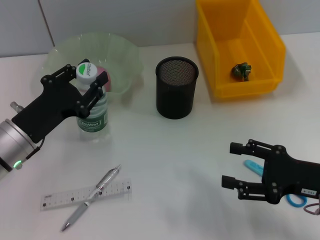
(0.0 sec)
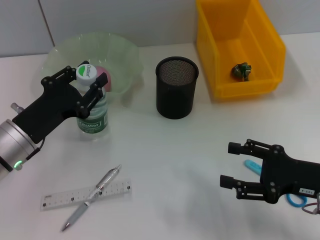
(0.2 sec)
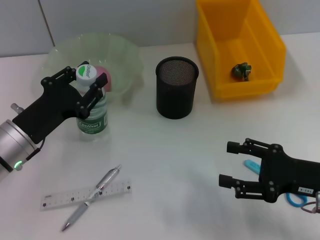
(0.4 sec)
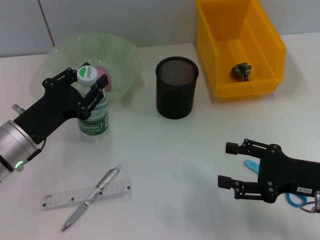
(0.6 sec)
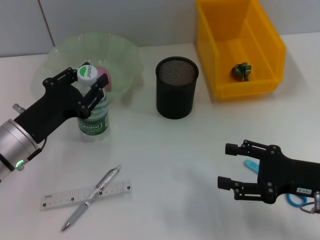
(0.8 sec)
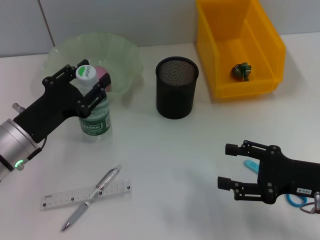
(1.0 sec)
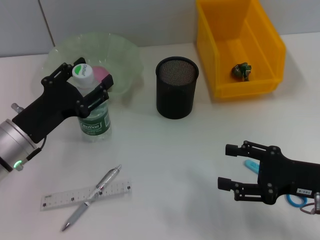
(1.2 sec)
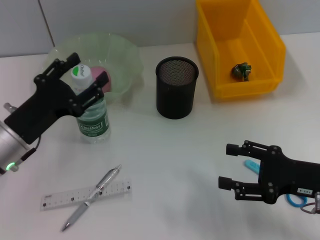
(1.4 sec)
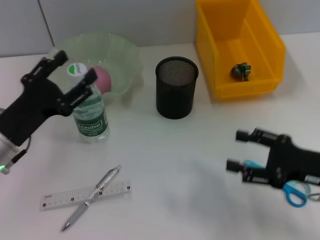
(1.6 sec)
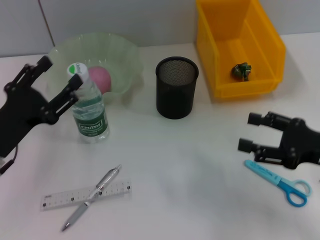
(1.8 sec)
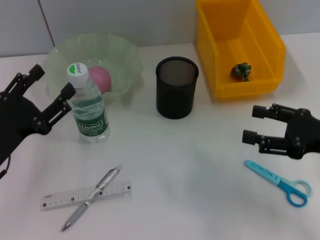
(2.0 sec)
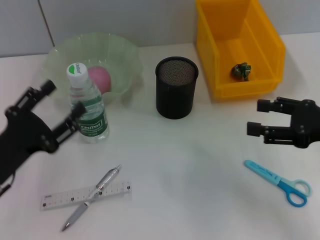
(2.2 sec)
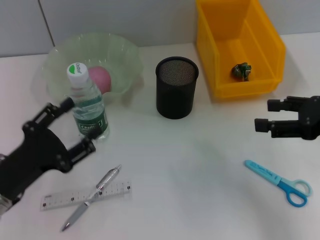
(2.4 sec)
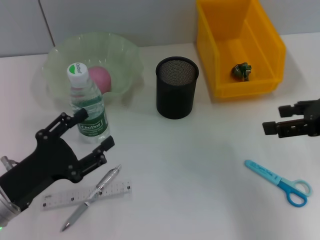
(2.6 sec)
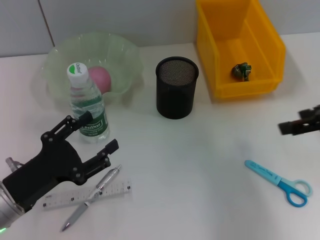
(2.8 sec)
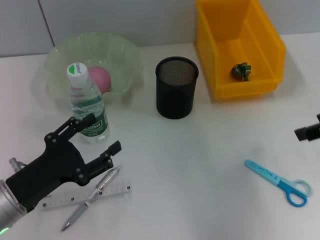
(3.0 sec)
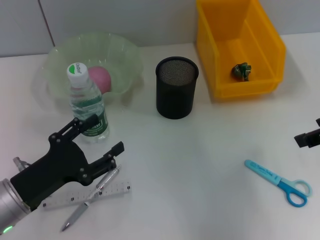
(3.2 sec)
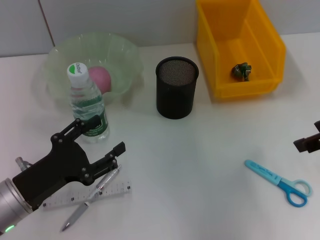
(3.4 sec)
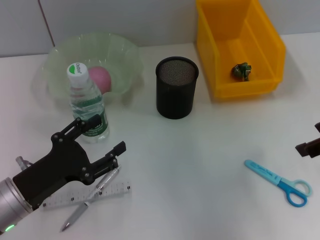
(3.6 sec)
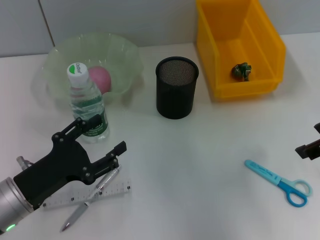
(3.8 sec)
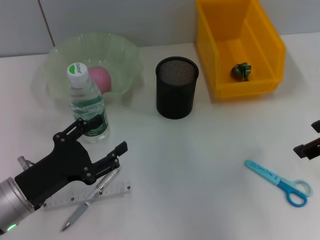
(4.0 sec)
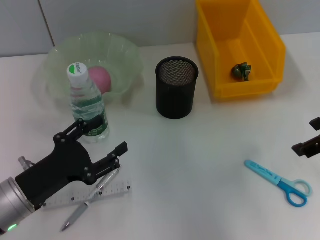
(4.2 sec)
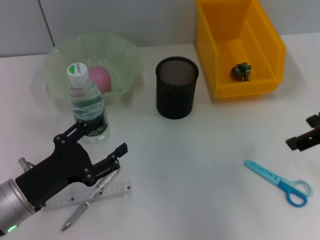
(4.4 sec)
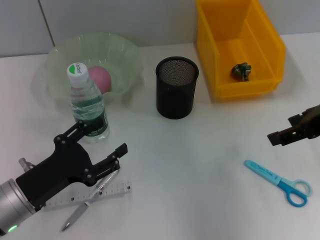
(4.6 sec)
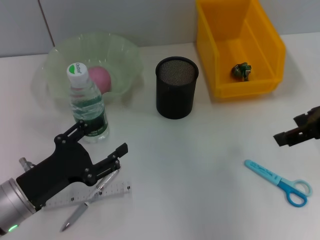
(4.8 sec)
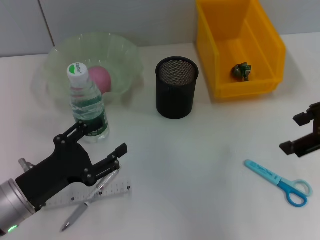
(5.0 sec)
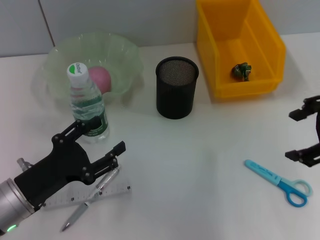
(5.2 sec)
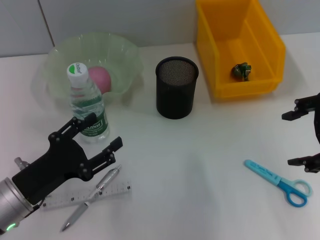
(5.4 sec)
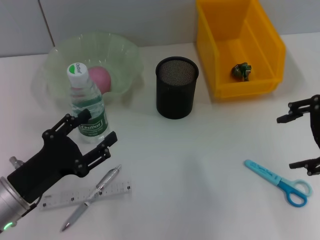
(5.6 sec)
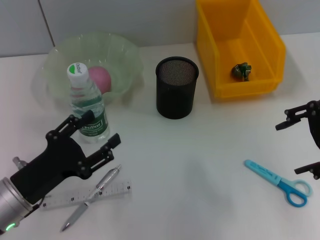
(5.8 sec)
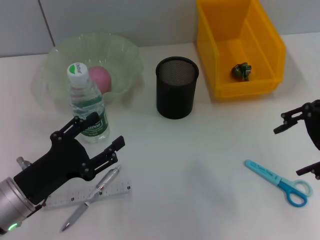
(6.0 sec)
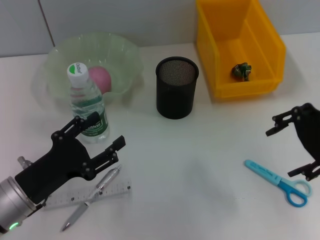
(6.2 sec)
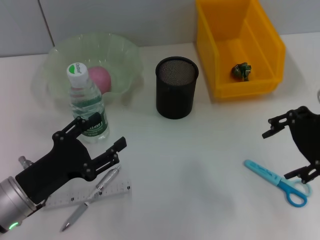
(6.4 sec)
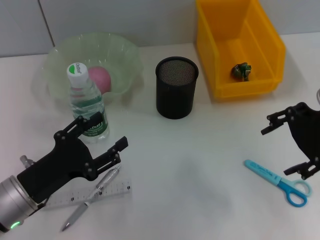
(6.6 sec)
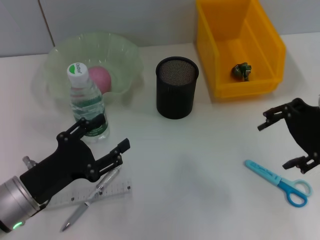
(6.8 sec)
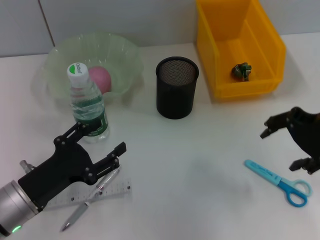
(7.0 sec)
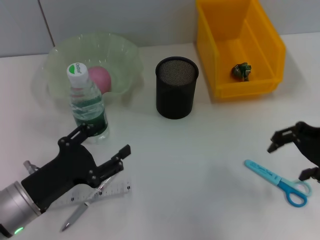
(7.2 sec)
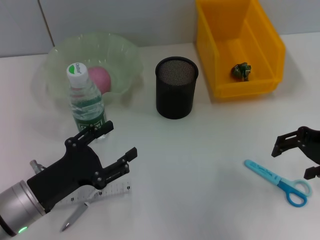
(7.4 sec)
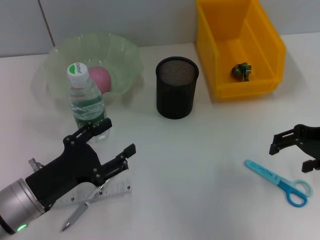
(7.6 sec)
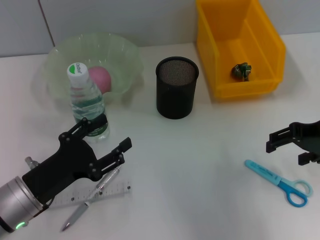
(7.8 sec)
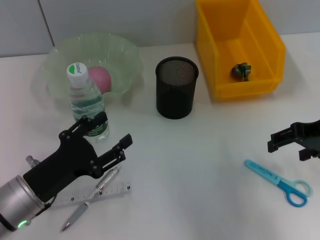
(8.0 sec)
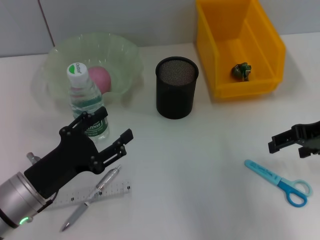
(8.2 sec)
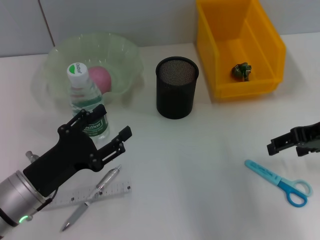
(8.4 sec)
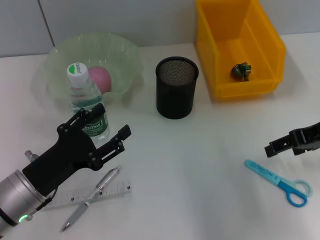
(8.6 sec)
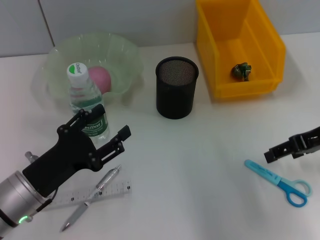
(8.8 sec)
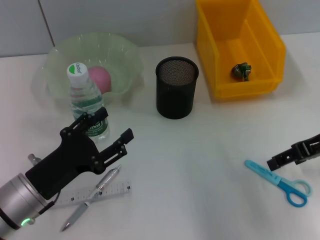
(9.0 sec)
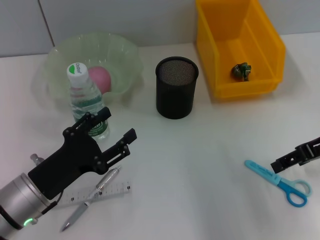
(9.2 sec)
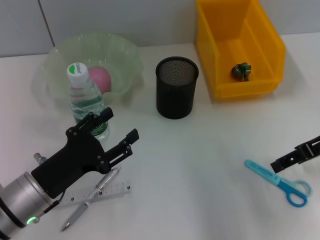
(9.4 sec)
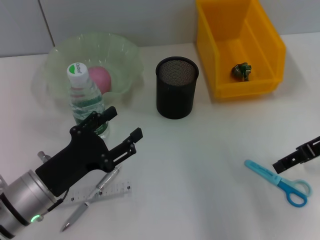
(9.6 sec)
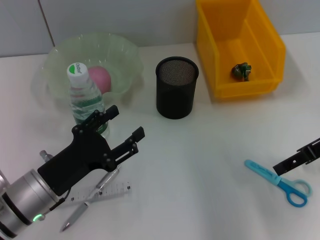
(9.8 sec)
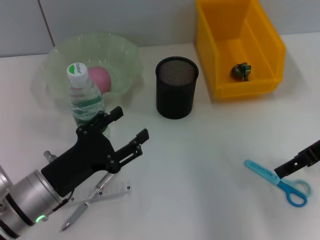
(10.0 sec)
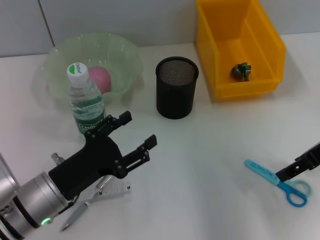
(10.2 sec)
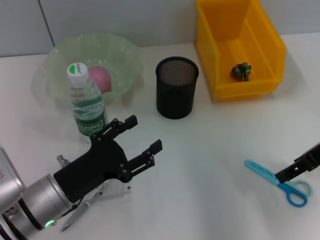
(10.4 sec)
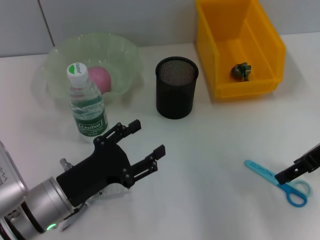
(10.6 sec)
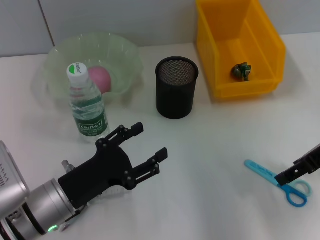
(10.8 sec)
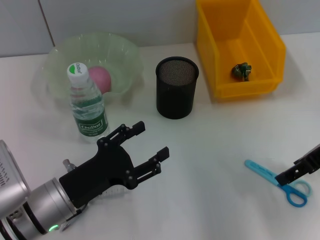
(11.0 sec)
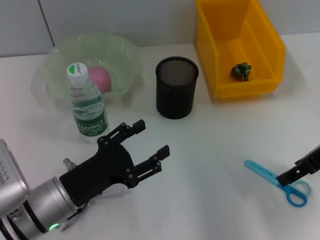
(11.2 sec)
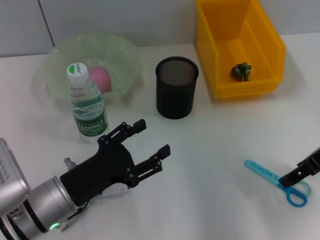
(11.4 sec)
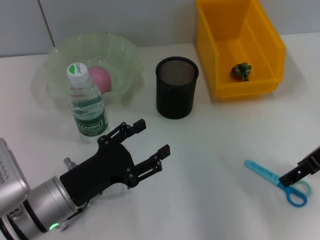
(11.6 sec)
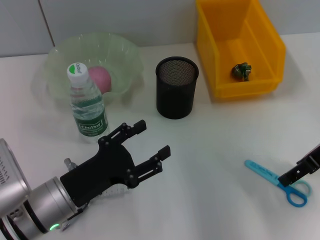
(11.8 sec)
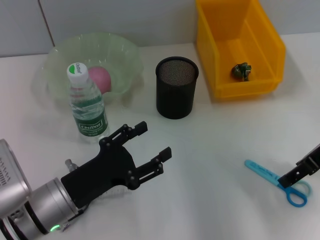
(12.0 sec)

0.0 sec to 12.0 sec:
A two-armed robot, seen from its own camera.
0.0 sec to 1.6 sec: The left gripper opens.
1.6 sec to 3.0 sec: The right gripper travels upward by roughly 15 cm. The left gripper moves backward, approximately 5 cm.
3.0 sec to 4.4 sec: The grippers stay close to where they were, moving slightly.
6.0 sec to 7.6 sec: The right gripper moves downward, about 5 cm.
9.0 sec to 10.4 sec: There are only small adjustments of the grippers.
10.4 sec to 12.0 sec: The two grippers keep their place.

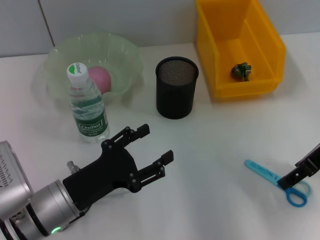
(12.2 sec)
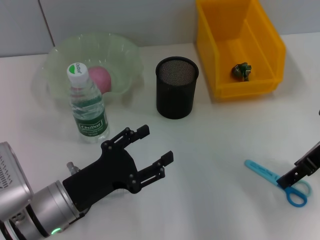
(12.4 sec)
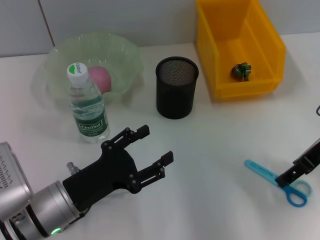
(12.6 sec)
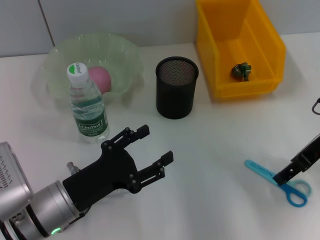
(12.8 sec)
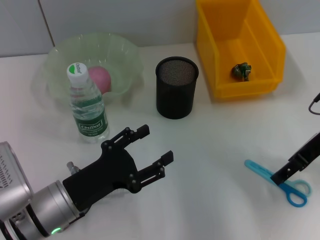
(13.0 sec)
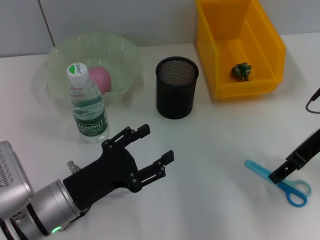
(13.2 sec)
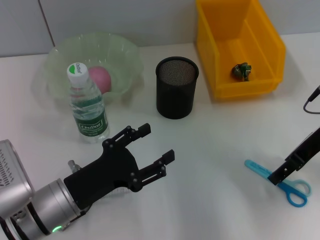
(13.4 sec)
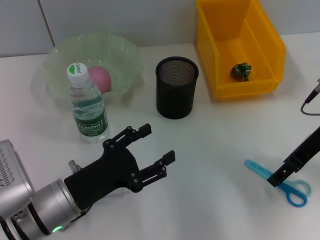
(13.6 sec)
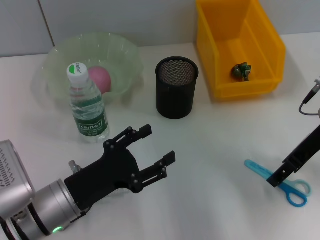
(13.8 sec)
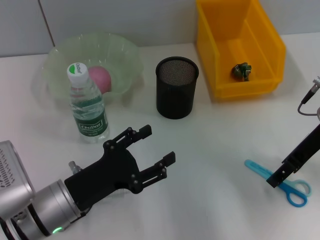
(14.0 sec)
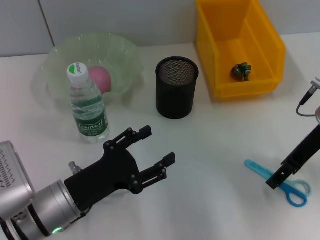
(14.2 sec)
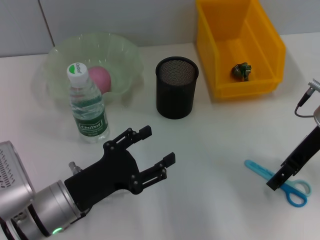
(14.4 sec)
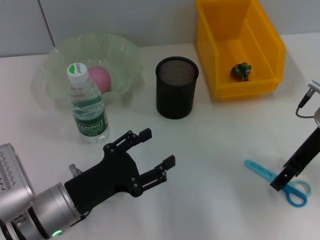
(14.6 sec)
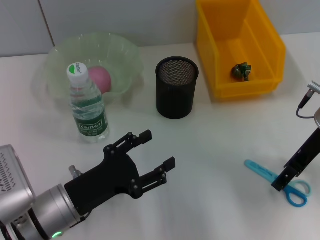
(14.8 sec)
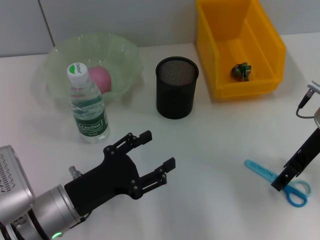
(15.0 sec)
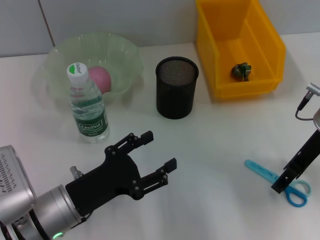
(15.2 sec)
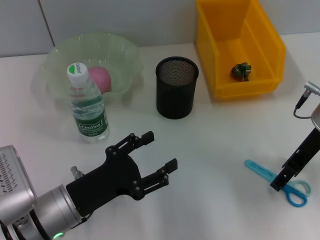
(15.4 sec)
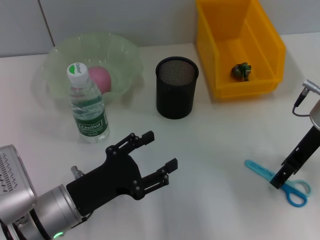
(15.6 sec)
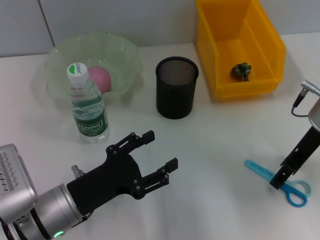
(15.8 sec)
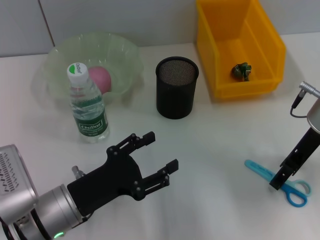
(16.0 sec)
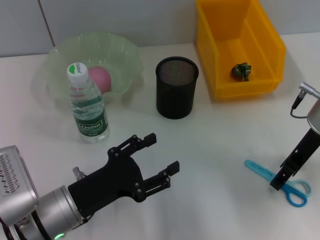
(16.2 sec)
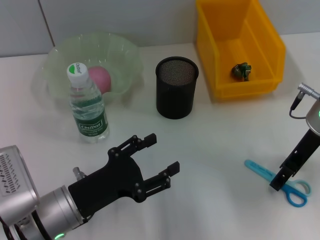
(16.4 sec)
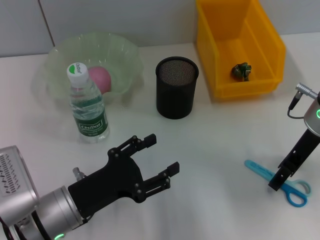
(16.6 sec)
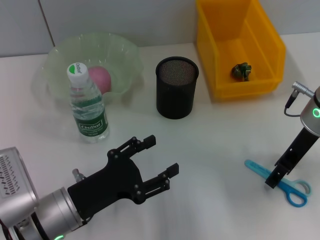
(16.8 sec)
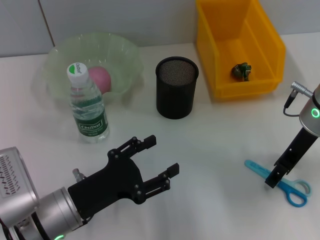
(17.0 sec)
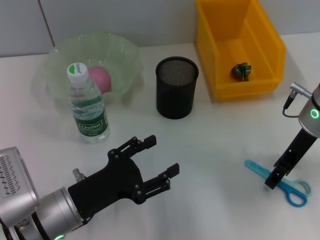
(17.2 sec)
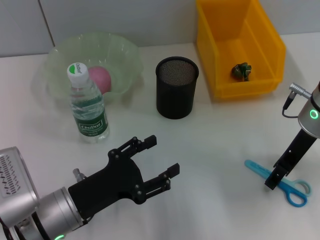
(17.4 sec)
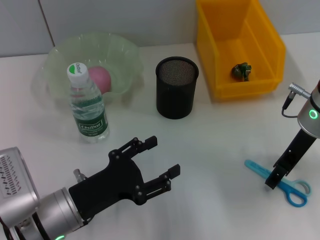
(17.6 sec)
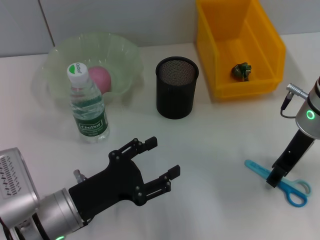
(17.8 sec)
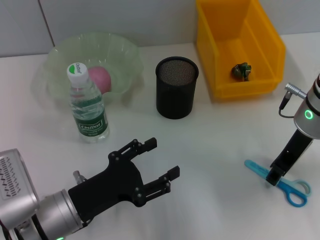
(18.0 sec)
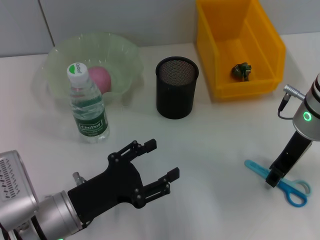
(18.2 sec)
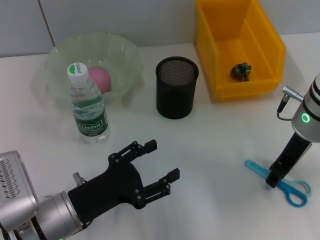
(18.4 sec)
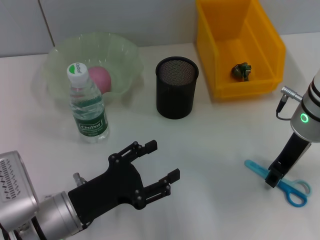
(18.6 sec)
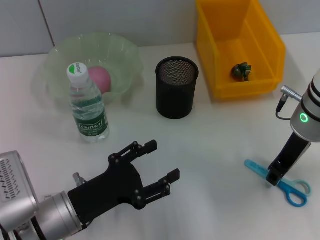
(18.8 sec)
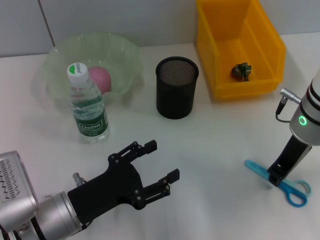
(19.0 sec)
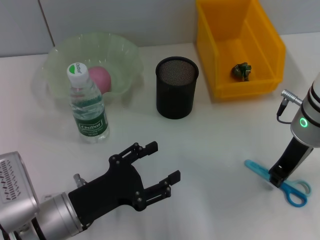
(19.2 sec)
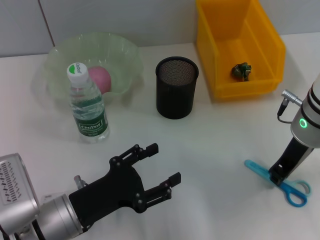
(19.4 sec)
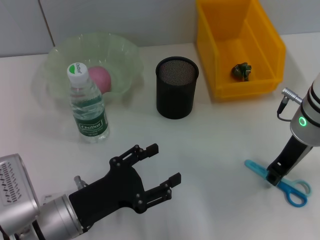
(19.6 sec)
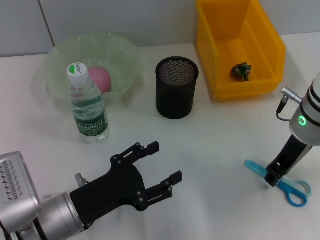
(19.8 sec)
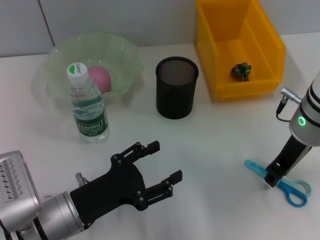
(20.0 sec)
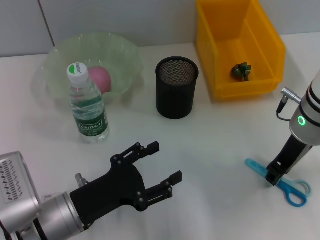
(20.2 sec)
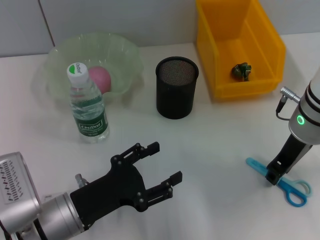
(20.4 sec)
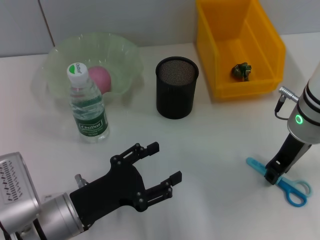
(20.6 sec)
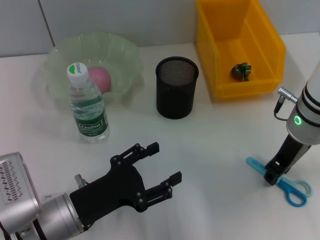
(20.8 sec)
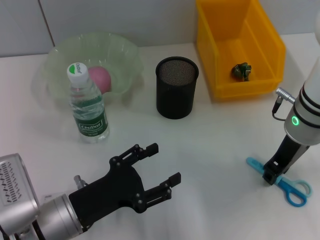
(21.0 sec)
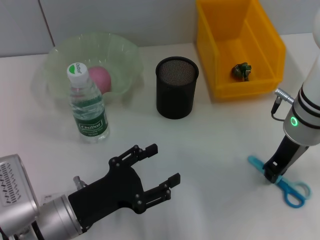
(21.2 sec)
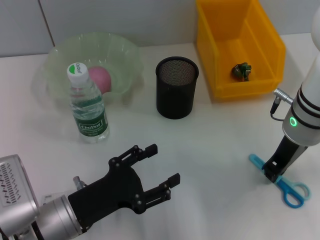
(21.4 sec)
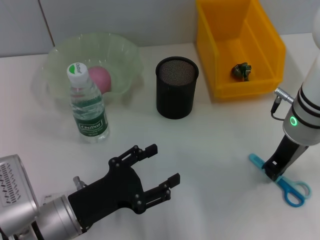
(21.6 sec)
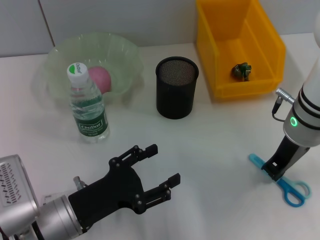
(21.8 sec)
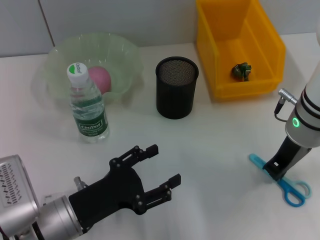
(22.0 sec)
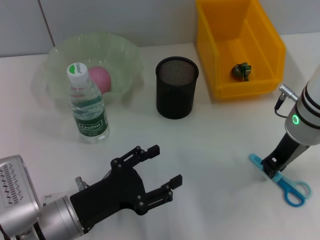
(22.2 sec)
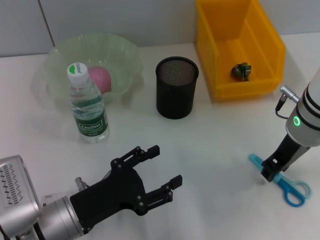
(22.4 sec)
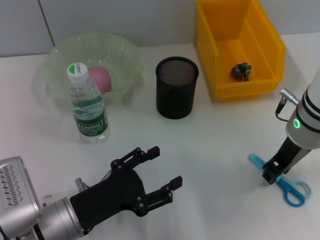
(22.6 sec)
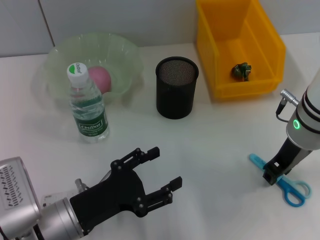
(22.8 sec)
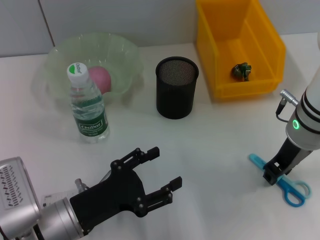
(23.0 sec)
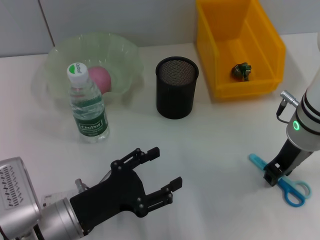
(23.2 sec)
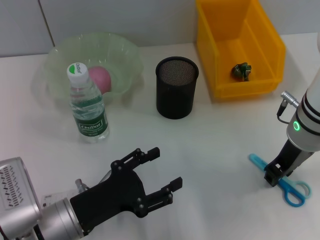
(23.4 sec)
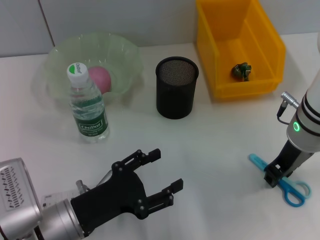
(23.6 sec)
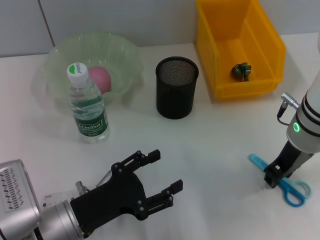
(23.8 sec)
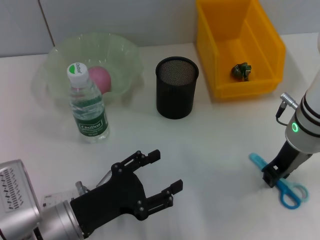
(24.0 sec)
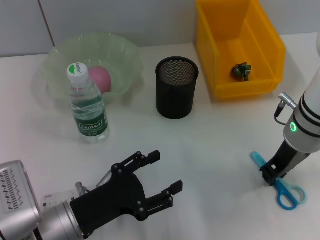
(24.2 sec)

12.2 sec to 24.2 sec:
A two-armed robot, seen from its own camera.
Step, 12.2 sec to 24.0 sec: Grab the blue scissors with the right hand.
12.2 sec to 16.6 sec: The grippers stay close to where they were, moving slightly.
16.6 sec to 19.8 sec: The grippers make only small movements.
19.8 sec to 21.2 sec: Both grippers stay about where they are.
21.2 sec to 22.6 sec: The right gripper closes, then opens again.
22.6 sec to 24.2 sec: Neither gripper changes place.
